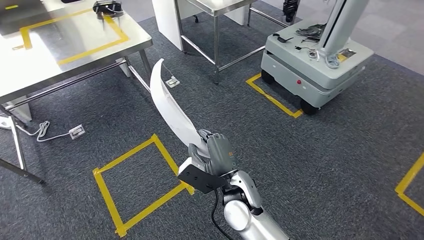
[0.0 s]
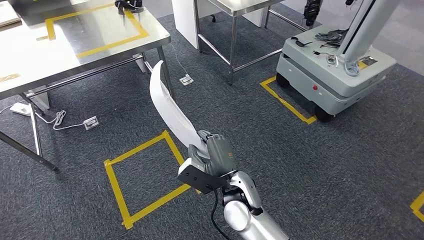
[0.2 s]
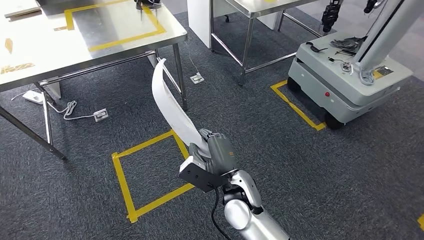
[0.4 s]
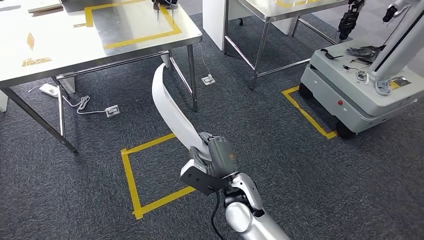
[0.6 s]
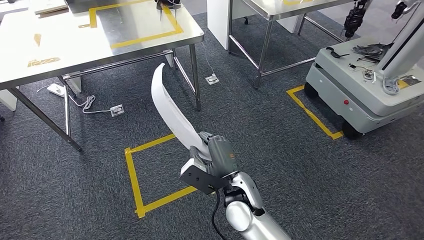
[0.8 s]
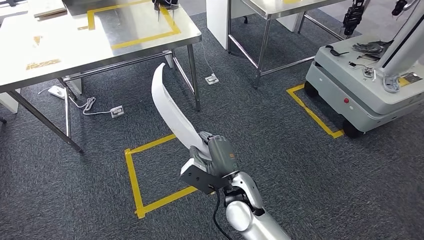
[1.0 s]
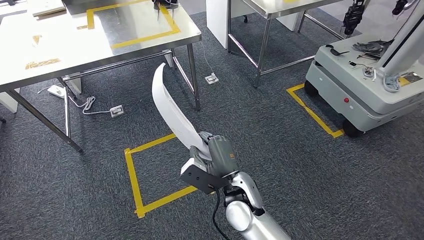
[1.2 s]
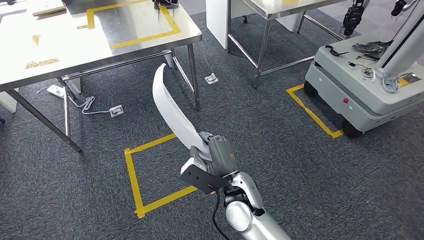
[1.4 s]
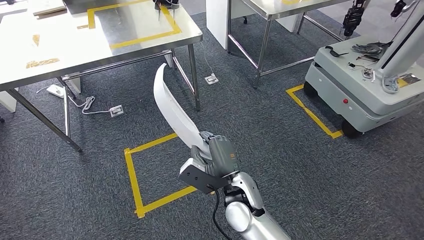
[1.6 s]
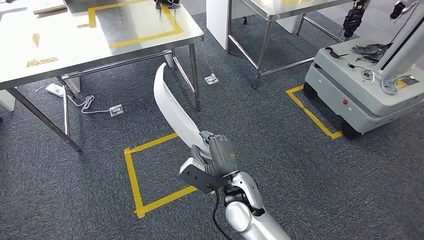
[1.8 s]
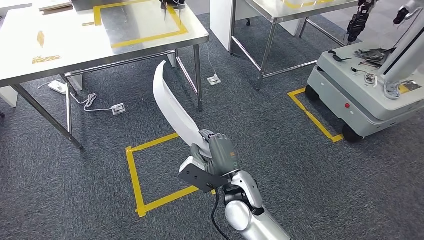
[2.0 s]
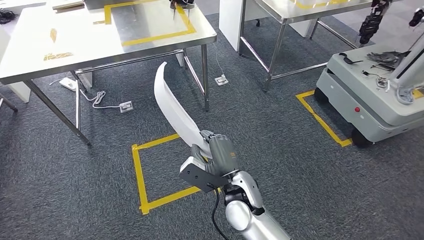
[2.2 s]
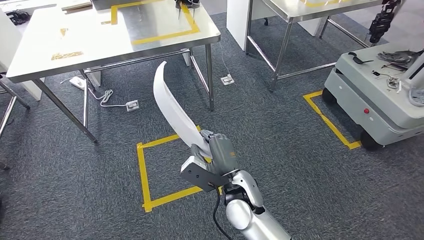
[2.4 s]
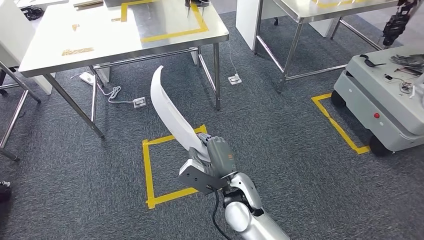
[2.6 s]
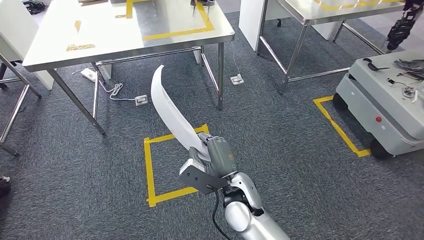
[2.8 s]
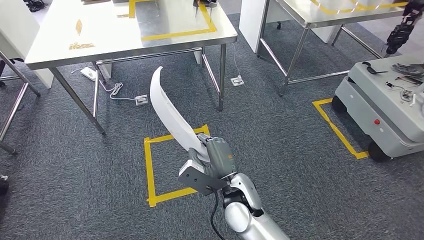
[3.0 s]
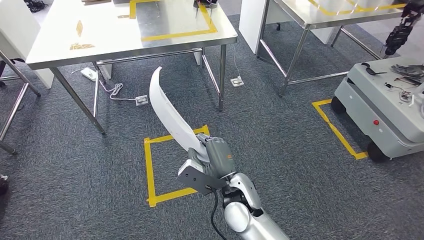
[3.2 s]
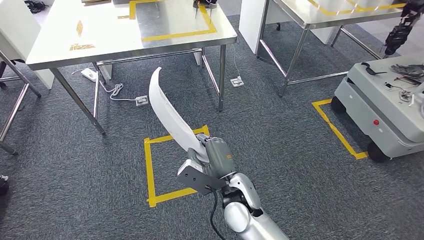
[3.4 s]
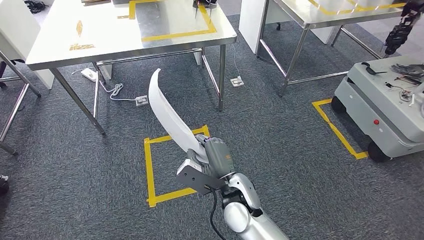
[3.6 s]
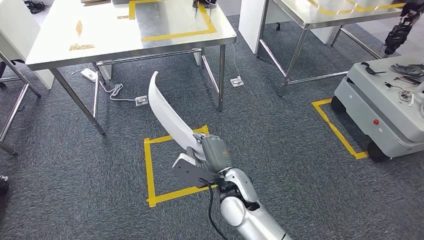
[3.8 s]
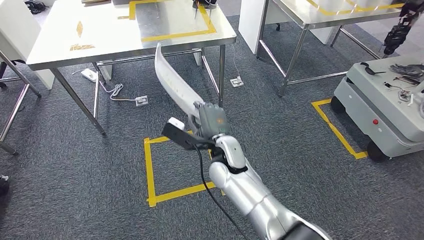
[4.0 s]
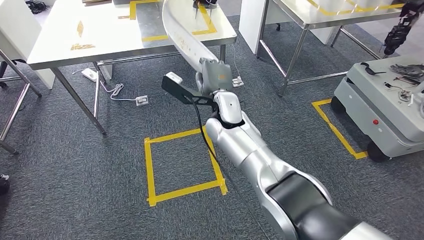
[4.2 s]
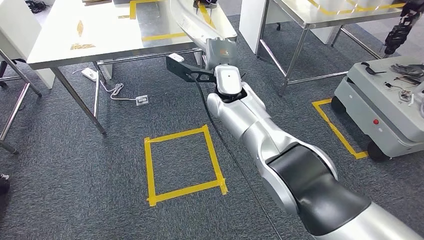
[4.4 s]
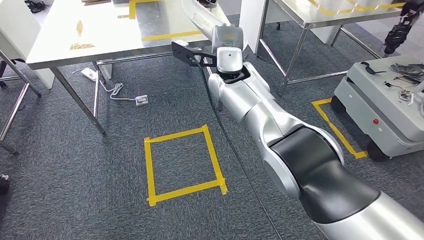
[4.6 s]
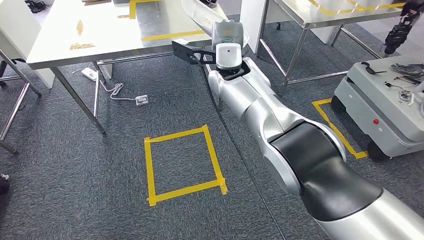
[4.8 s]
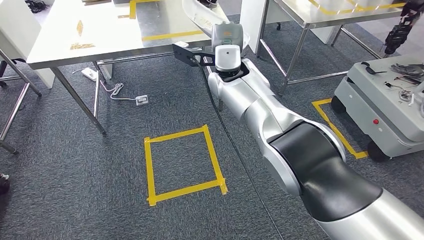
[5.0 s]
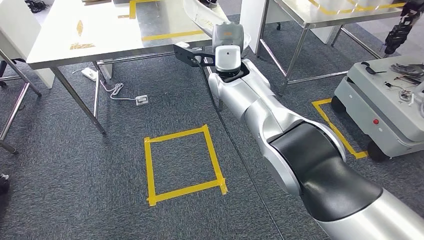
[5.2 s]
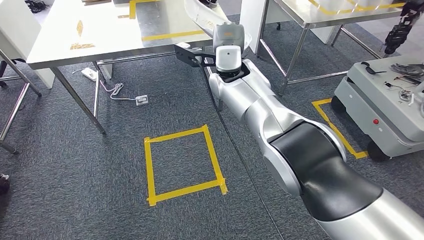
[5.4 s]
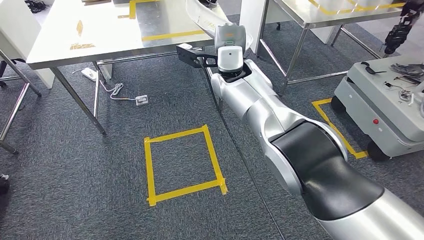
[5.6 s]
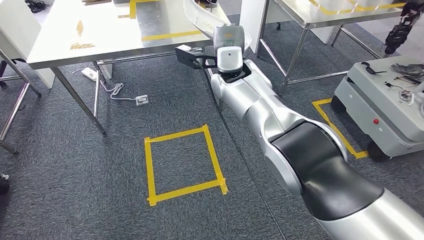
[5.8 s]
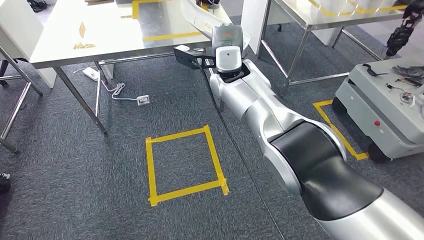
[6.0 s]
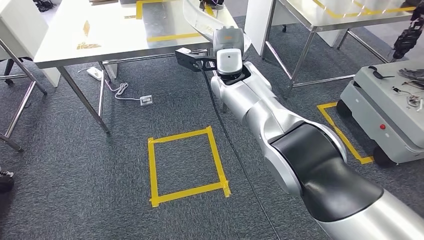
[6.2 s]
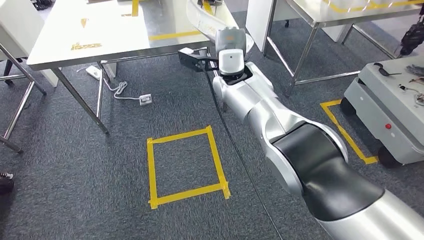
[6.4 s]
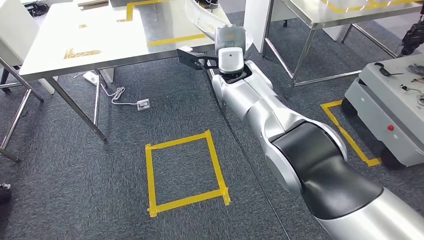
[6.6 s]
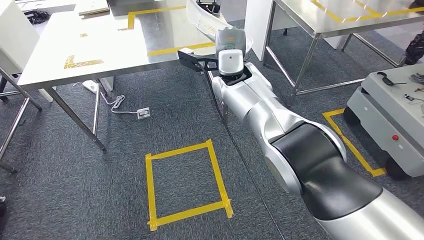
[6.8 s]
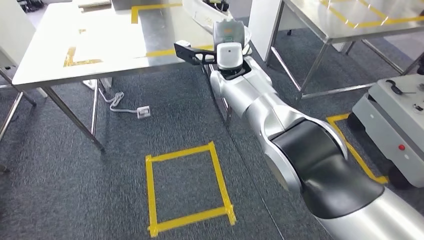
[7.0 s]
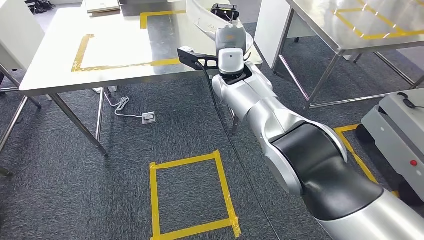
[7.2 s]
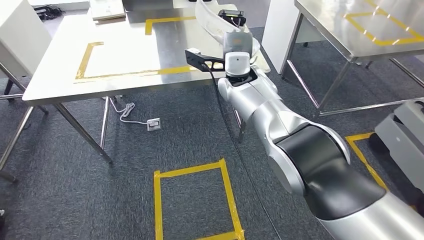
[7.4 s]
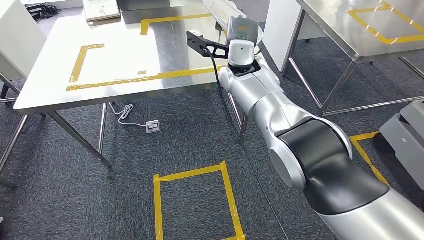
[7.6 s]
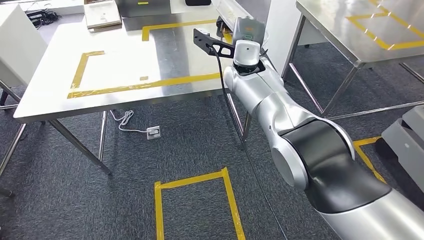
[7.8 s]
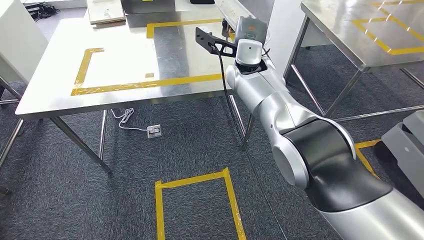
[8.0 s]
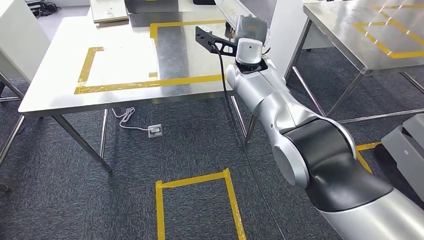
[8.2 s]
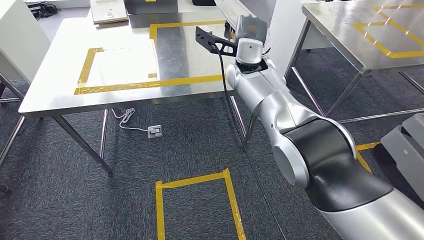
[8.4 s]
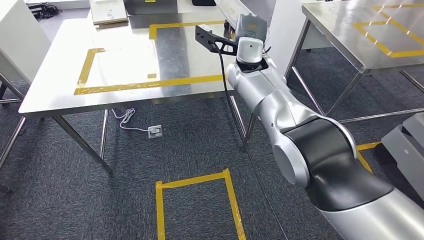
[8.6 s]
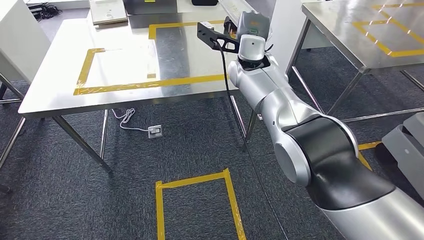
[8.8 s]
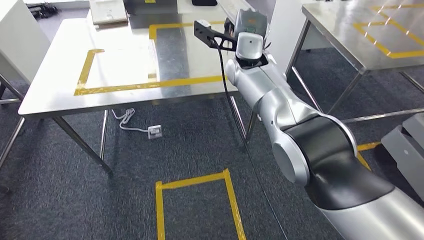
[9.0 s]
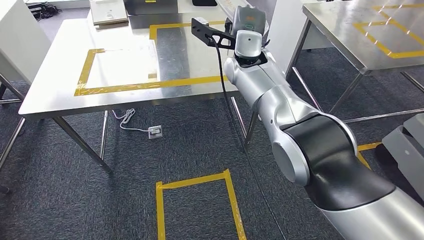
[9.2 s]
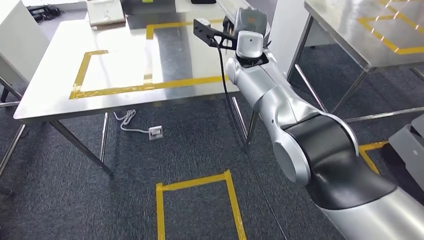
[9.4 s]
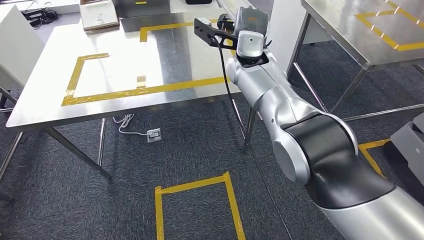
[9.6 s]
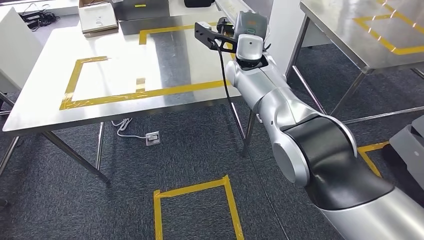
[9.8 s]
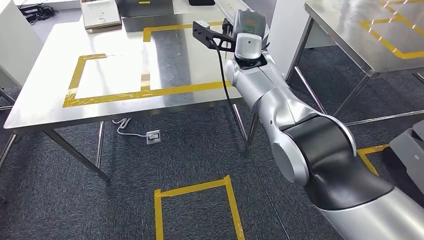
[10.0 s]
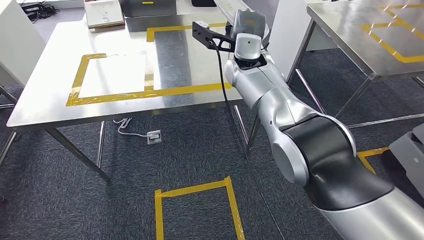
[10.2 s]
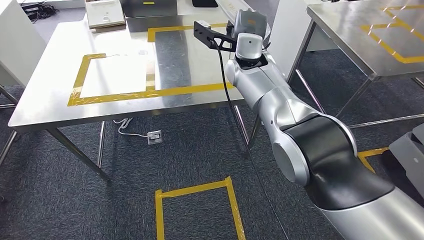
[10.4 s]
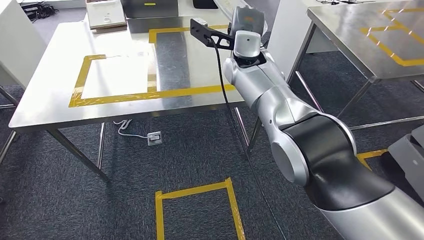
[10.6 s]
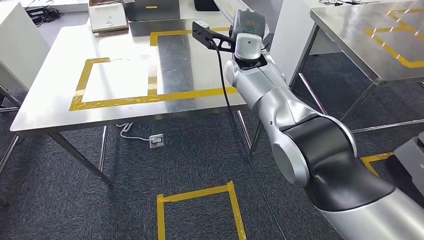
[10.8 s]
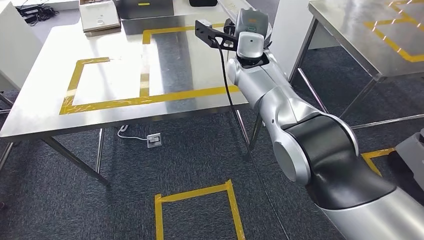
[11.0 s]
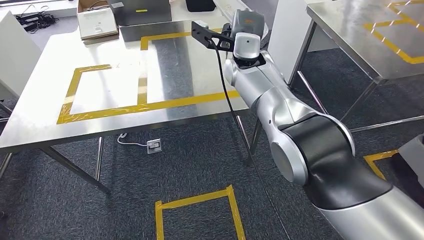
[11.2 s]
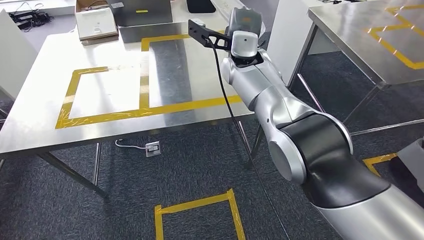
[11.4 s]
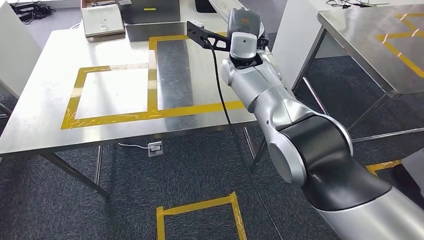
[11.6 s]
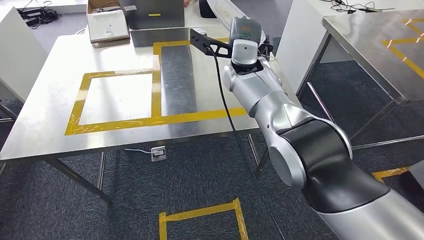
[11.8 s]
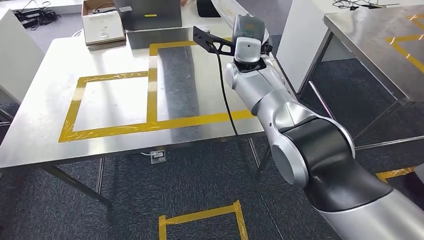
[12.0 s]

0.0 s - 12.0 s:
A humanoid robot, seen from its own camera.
9.0 s - 10.4 s: The two hands keep their place.

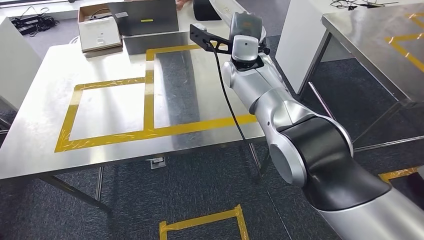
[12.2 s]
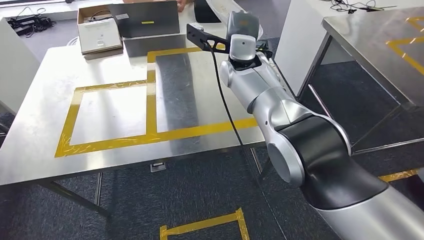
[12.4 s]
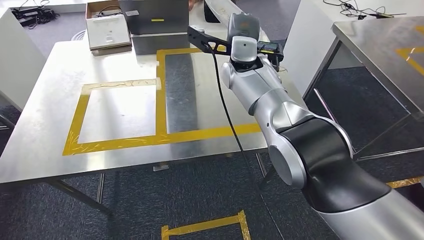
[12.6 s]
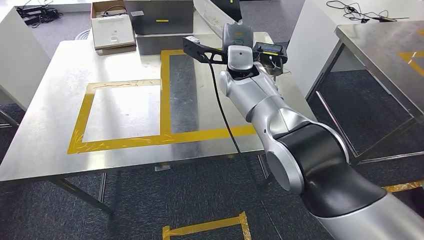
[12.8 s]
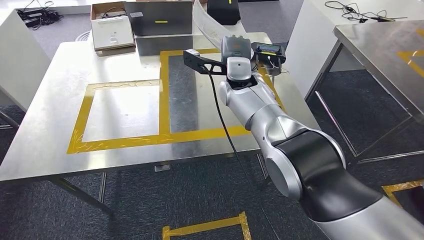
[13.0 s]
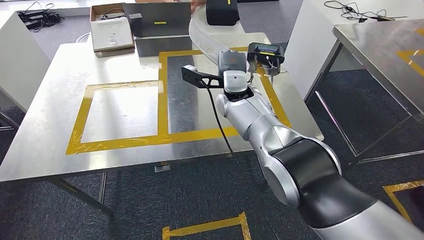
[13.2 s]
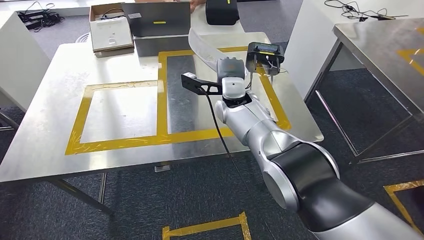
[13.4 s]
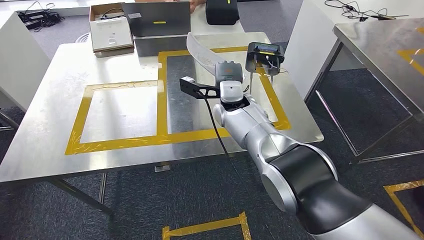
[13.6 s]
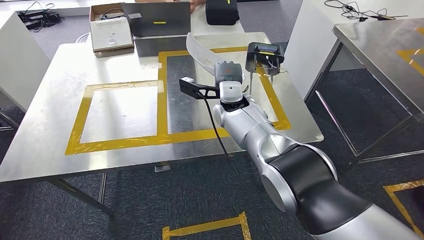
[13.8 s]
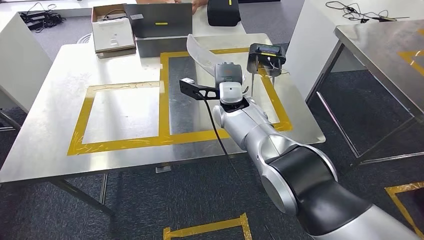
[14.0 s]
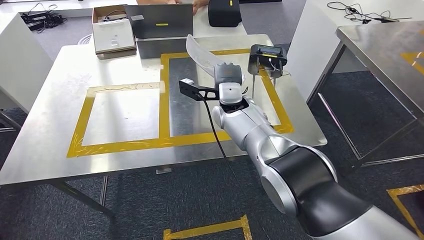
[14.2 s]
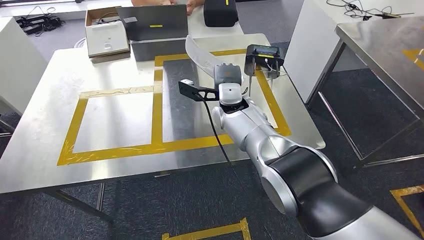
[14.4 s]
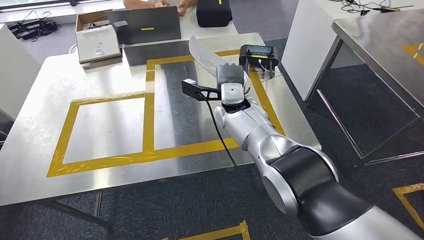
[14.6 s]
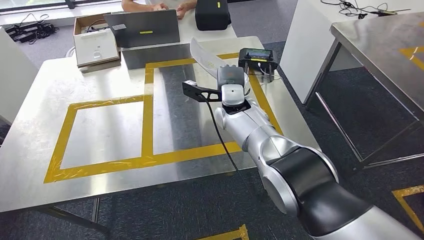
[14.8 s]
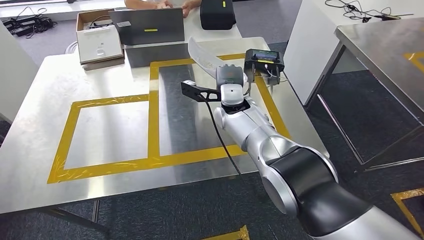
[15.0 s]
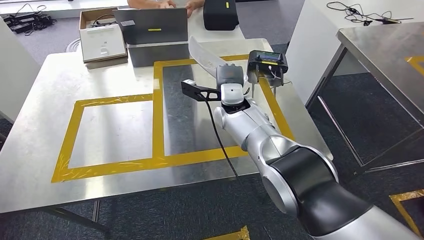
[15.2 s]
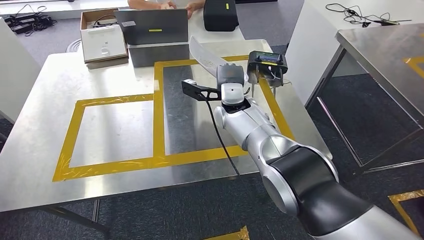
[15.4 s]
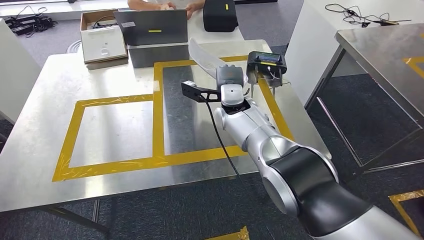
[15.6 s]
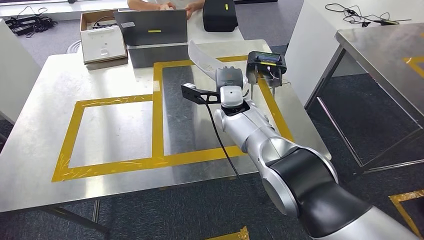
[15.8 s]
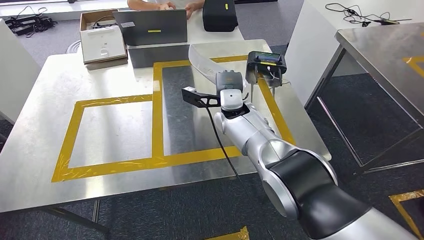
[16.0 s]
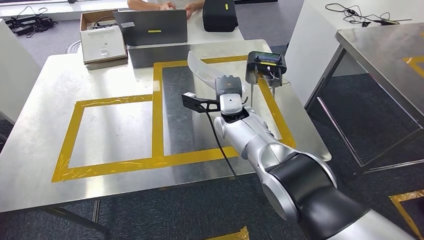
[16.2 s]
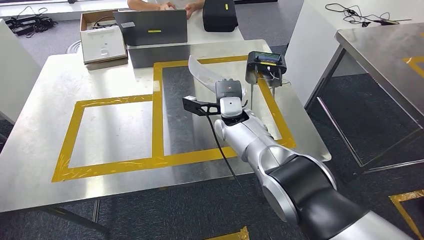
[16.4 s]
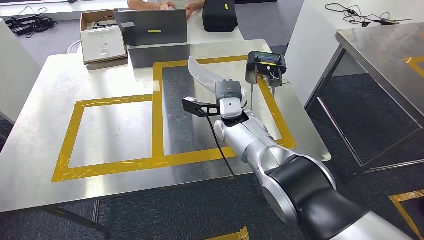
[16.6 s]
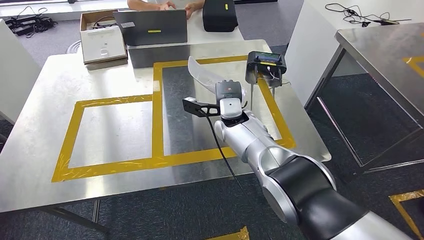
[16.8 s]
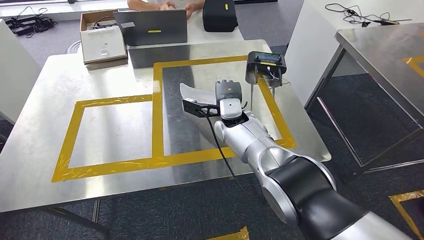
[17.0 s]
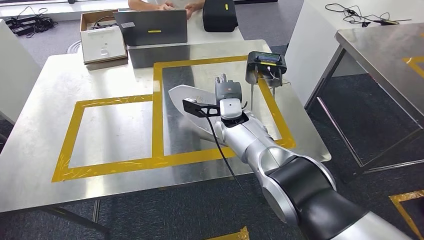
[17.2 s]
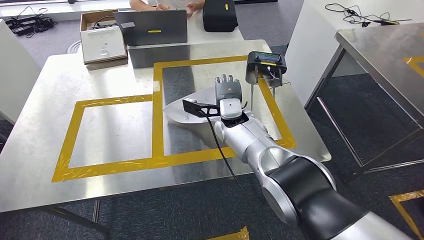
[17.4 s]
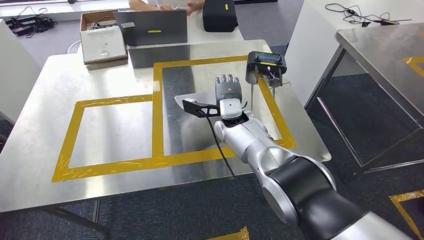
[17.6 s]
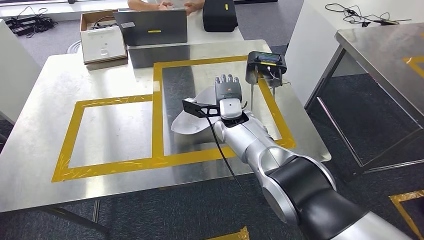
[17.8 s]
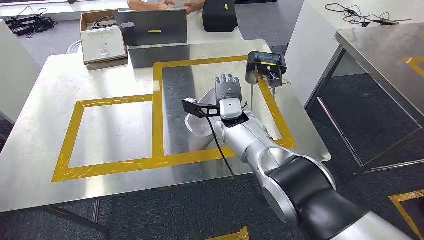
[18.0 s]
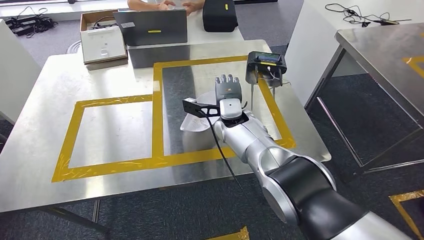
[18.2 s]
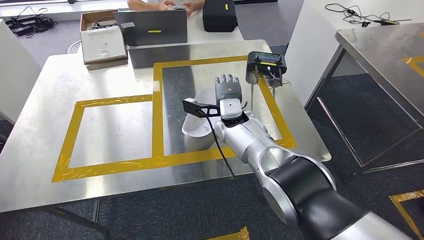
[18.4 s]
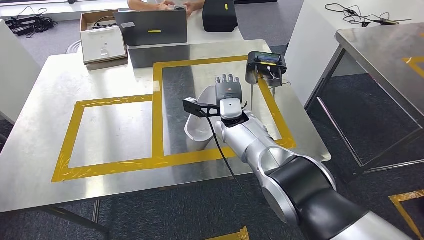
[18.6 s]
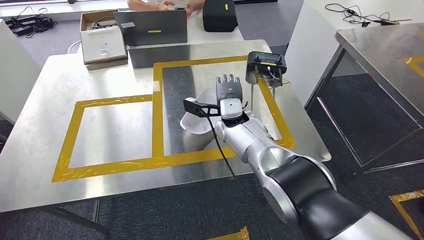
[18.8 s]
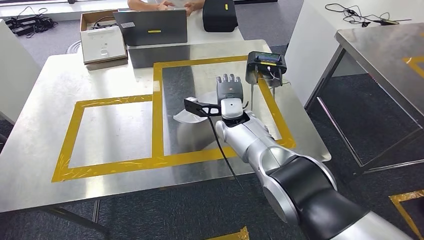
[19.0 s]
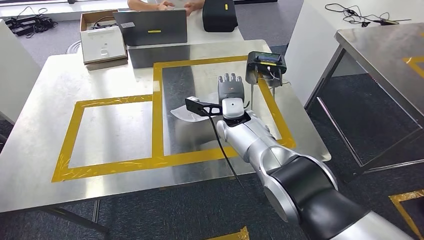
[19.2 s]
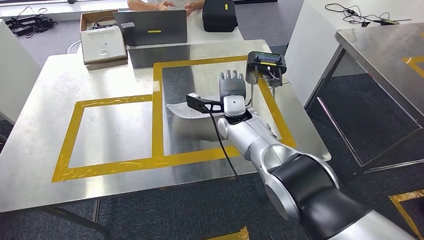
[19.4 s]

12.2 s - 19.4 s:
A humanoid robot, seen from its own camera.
Step, 13.4 s - 18.0 s: Insert the small component into the corresponding slot on the workbench.
15.0 s - 16.6 s: The hands move only a little.
16.6 s - 19.4 s: Both hands stay put.
